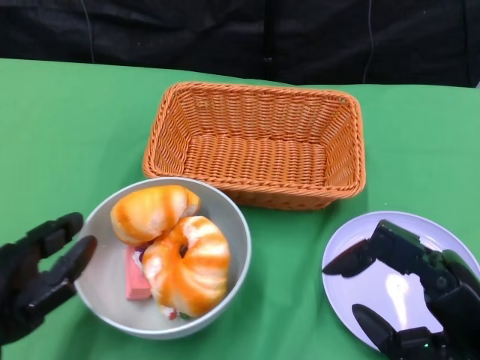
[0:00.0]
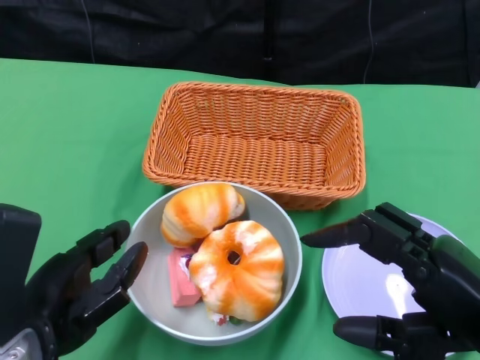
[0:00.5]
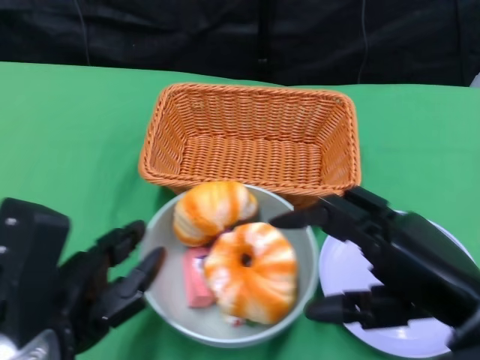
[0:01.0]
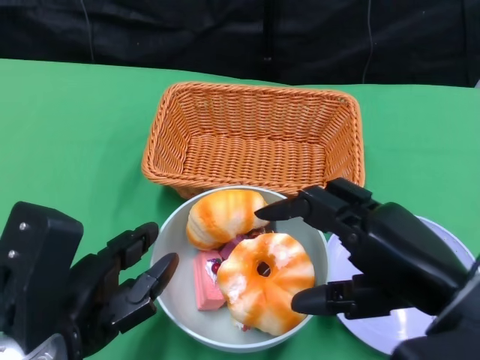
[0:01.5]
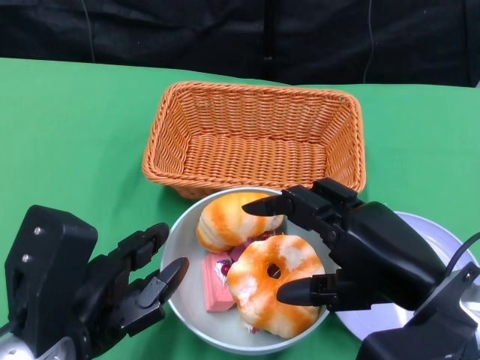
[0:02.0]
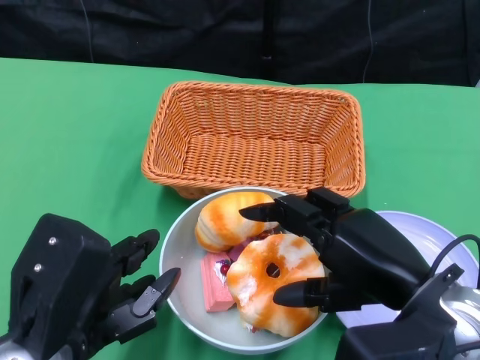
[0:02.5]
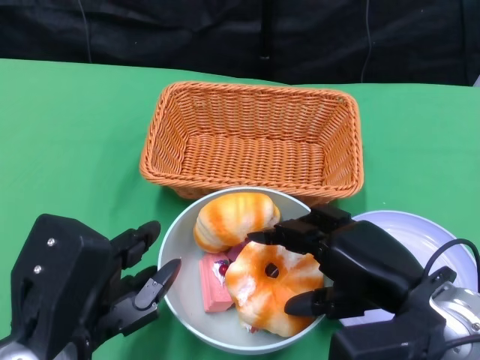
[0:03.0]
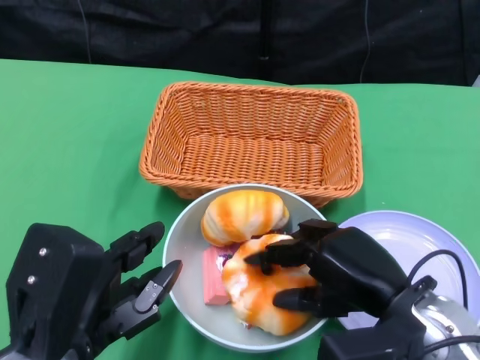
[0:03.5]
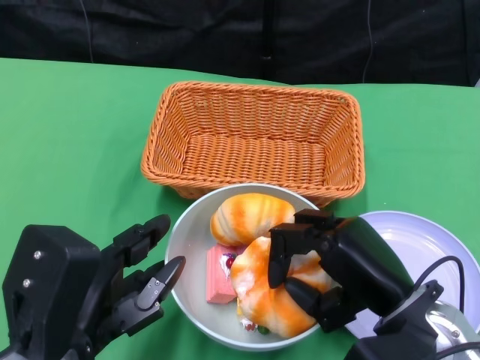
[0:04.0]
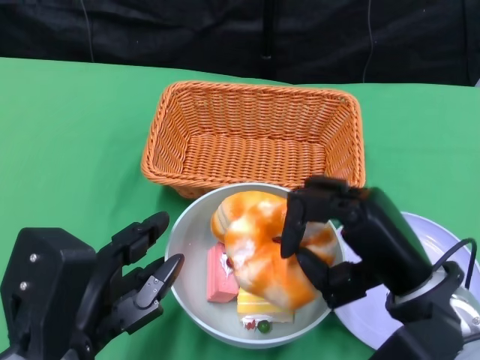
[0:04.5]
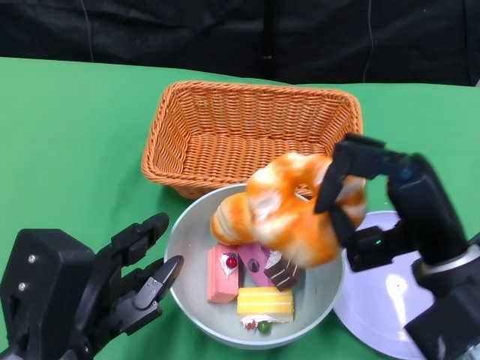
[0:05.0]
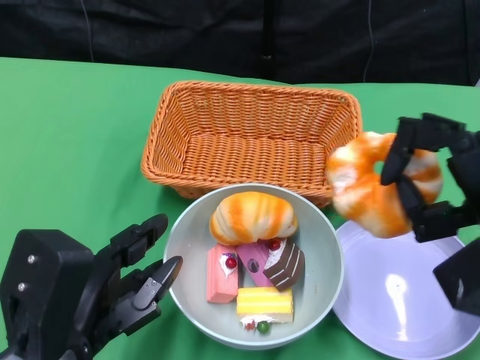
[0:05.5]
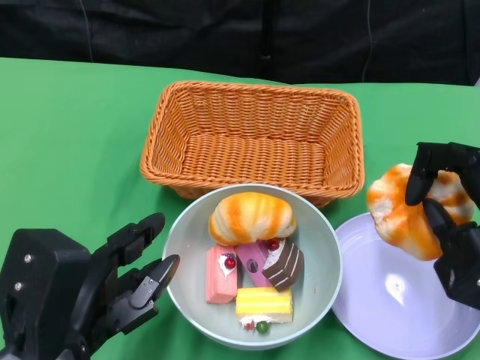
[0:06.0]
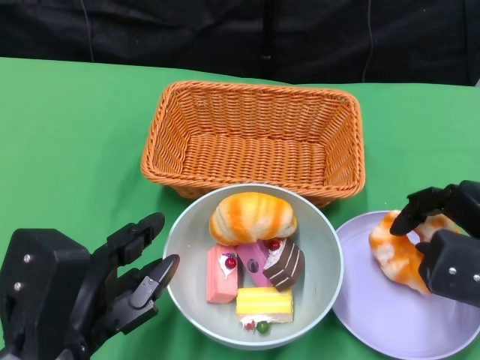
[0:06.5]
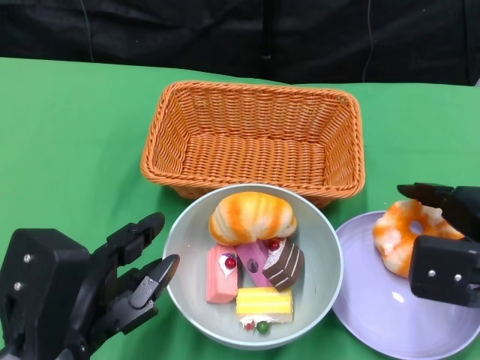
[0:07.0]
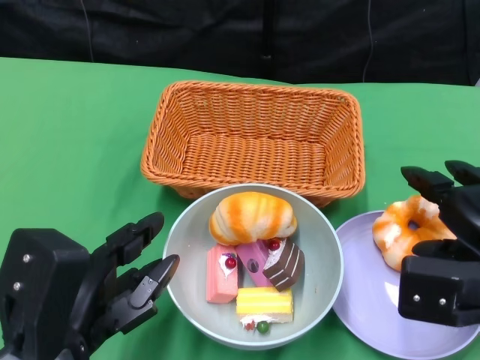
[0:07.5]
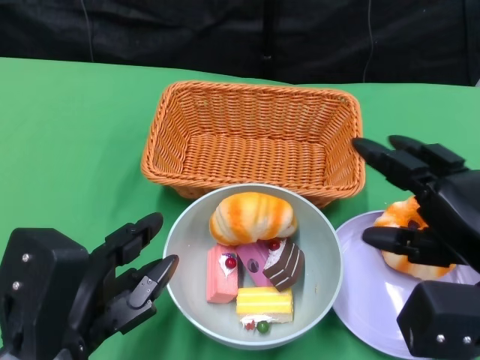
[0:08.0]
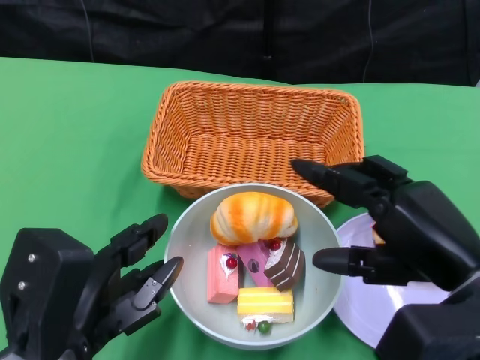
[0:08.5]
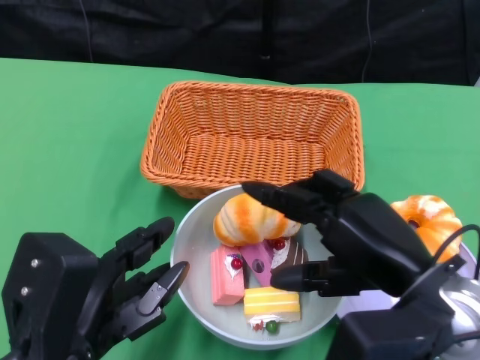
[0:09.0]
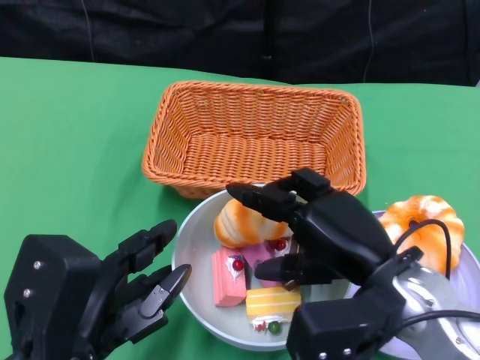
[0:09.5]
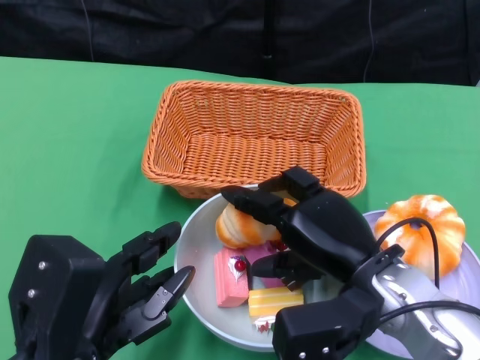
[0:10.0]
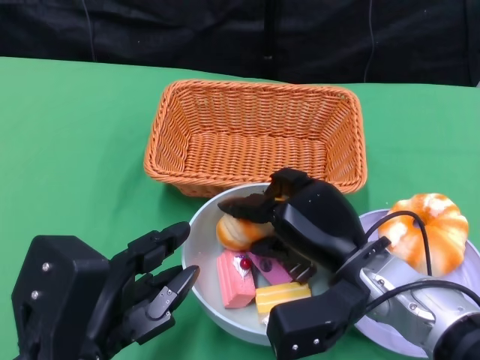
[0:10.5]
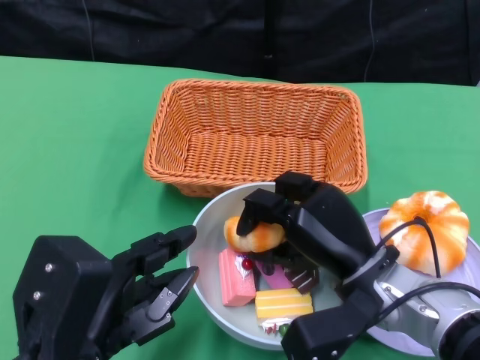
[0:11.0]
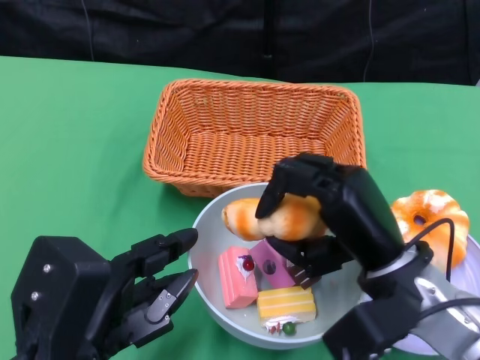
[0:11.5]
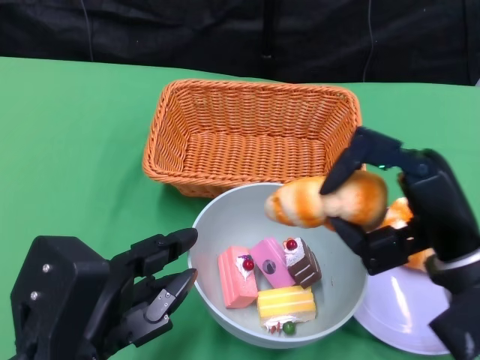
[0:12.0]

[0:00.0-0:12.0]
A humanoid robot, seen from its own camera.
0:00.0 to 0:02.0: The left hand shifts about 5 cm to the right. Meanwhile the right hand shifts by roughly 5 cm.
0:02.0 to 0:04.0: The right hand shifts about 5 cm downward.
0:04.0 to 0:06.0: The right hand travels to the right by approximately 10 cm.
0:08.0 to 0:10.0: The right hand travels to the left by roughly 10 cm.
0:10.0 to 0:12.0: The right hand travels to the right by about 5 cm.

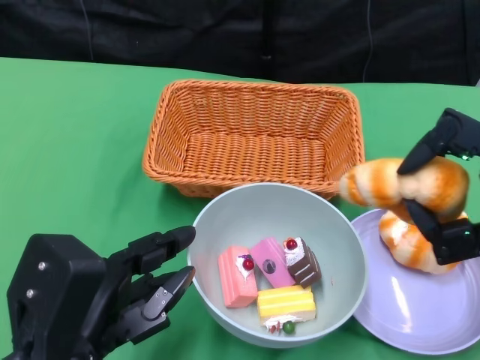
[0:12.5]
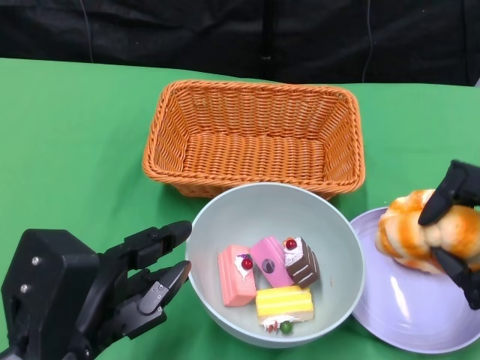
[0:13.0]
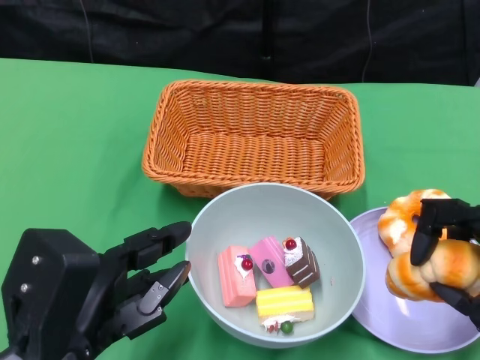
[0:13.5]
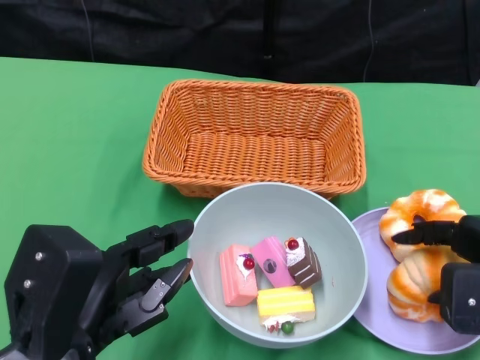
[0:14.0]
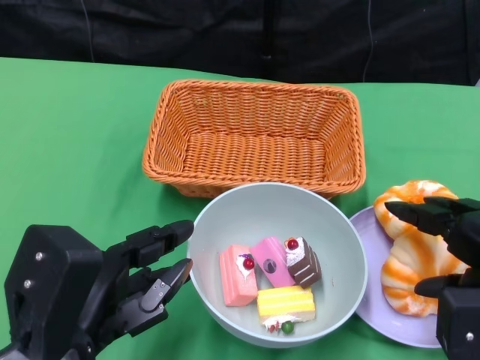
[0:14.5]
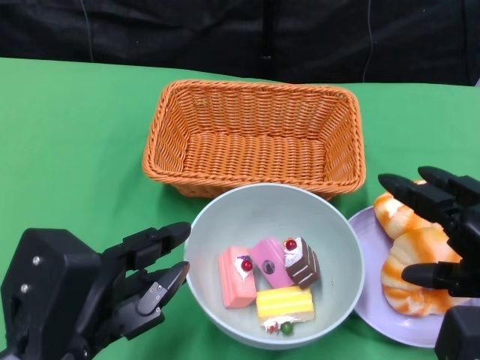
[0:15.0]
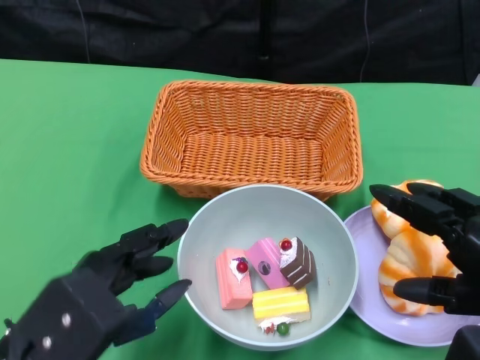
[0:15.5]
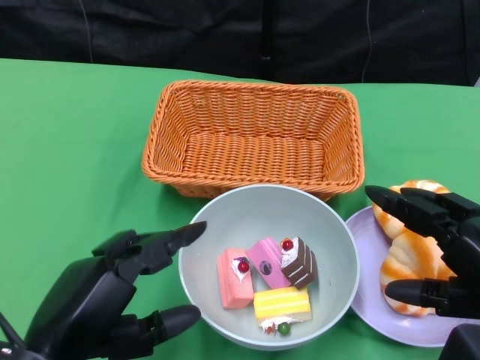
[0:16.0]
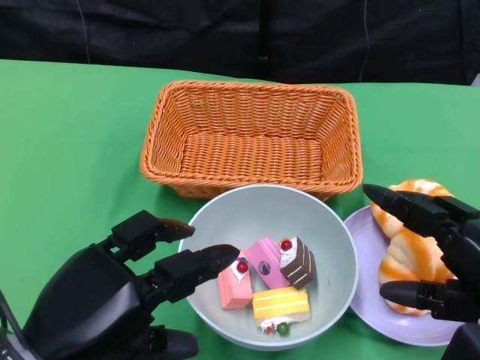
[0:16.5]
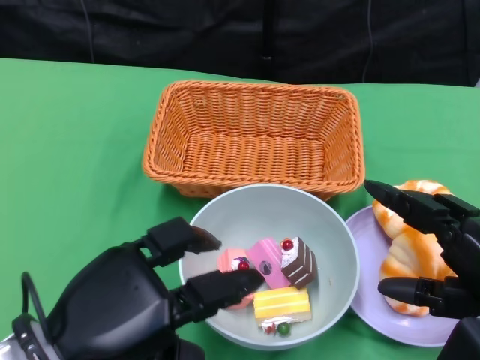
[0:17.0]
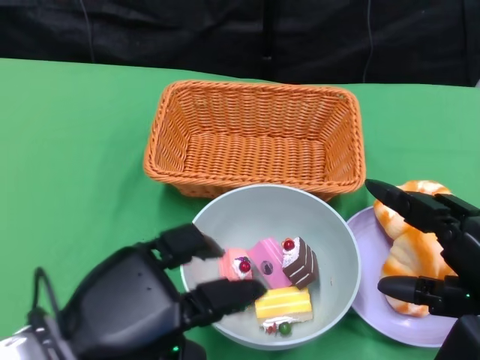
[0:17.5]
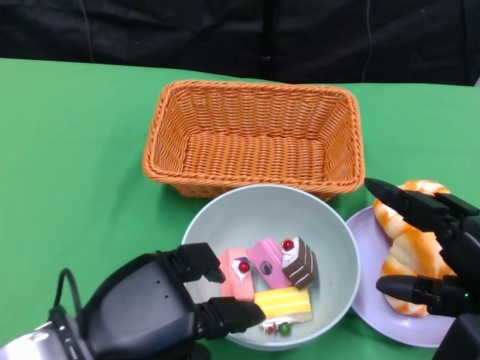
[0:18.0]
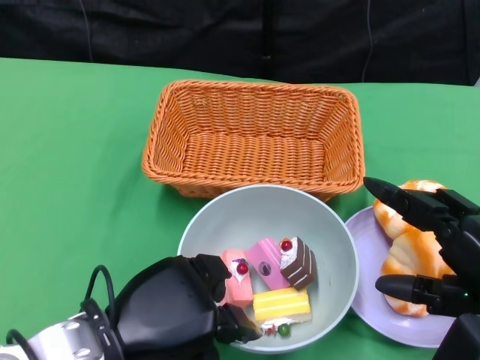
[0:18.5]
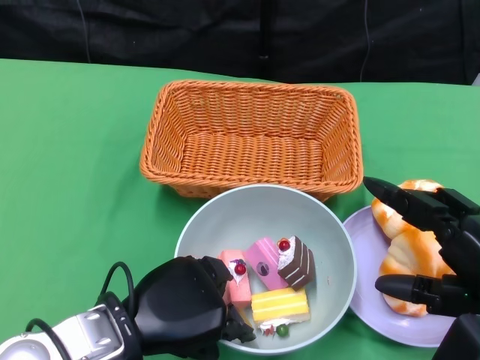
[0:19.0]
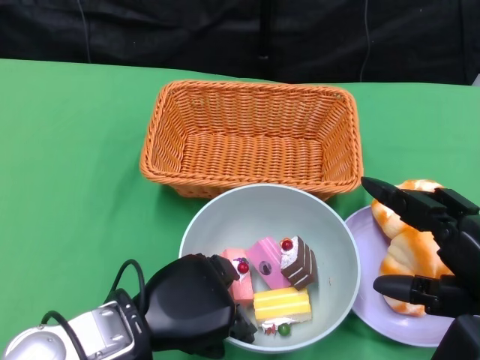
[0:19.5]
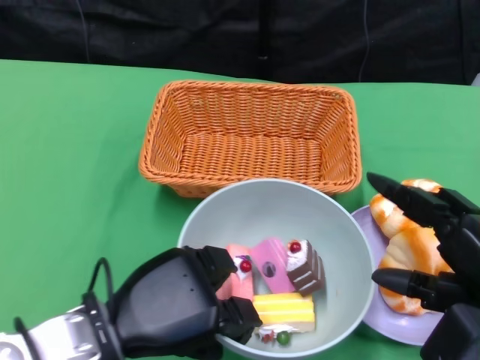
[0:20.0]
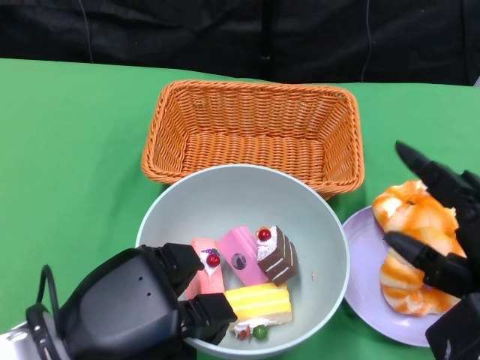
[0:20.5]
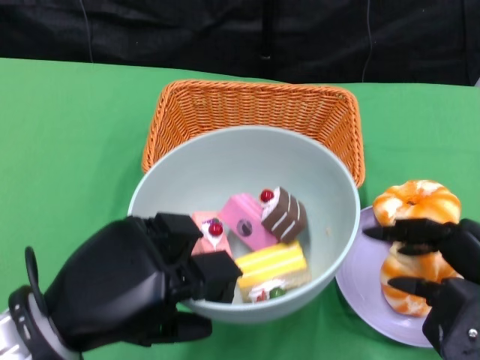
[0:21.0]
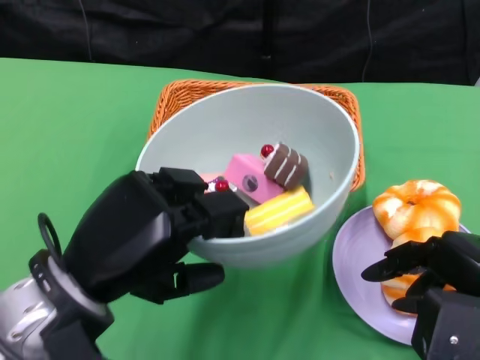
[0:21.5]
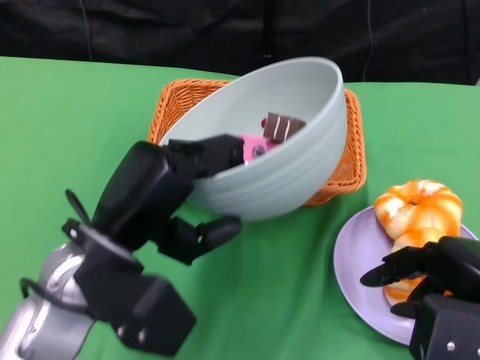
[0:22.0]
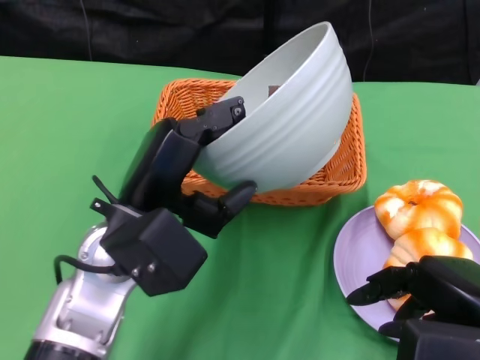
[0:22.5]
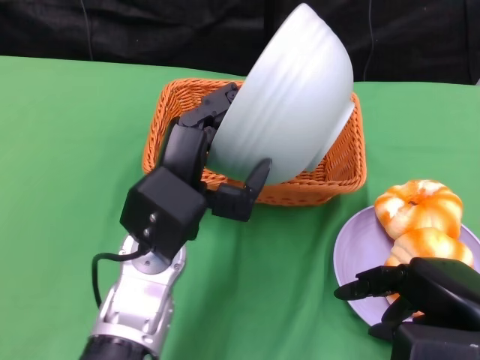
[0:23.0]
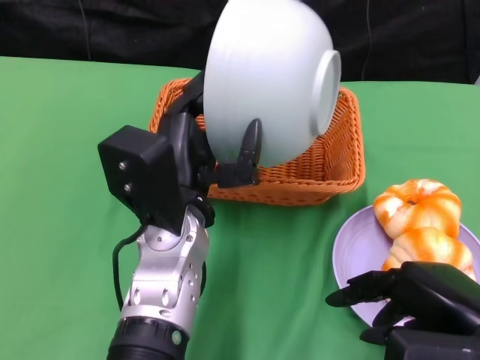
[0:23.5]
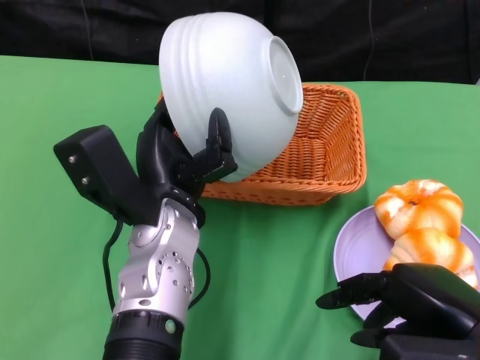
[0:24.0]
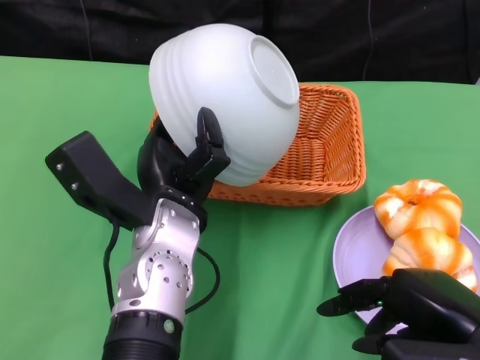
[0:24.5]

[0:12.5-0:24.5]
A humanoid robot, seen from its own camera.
Step, 0:12.5 to 0:14.5: Pick up the bread with the right gripper and place it on the plate.
Step, 0:15.0 to 0:19.0: Grasp the bowl with the left gripper.
0:16.5 to 0:18.5: The left hand ends up roughly 5 cm from where it was.
0:20.5 to 0:22.5: The left hand shifts some 10 cm forward and to the right.
0:22.5 to 0:24.5: The left hand shifts by roughly 5 cm.

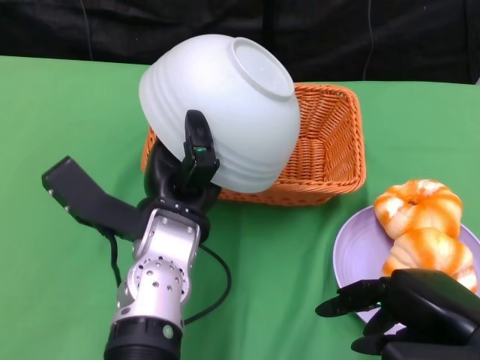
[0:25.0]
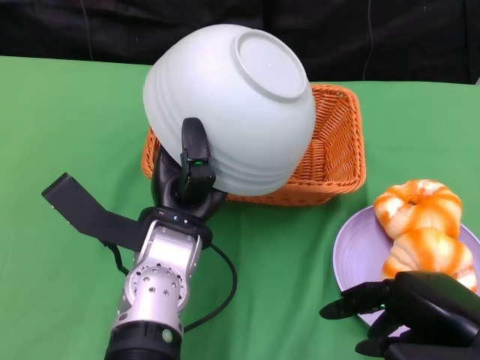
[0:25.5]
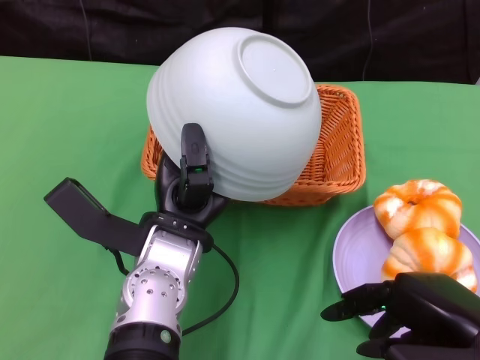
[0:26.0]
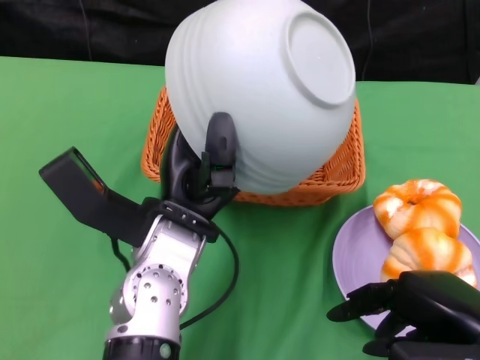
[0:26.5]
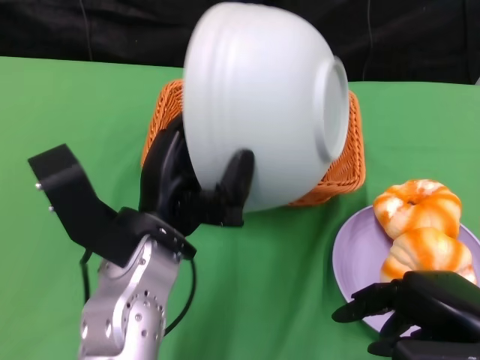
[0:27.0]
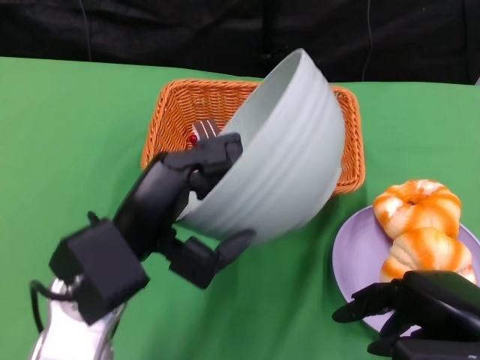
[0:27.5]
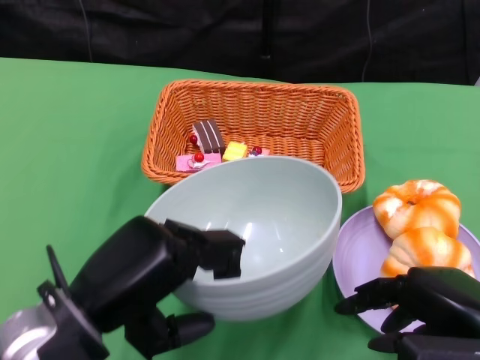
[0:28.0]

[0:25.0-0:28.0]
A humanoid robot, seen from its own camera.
0:26.5 to 0:28.0: The left hand heads to the left and backward, covering roughly 15 cm.
